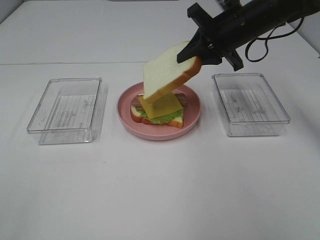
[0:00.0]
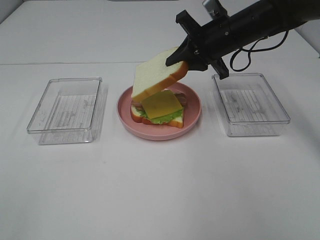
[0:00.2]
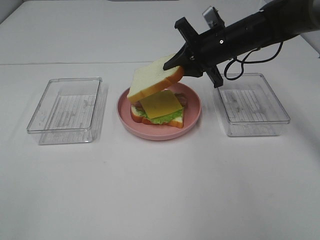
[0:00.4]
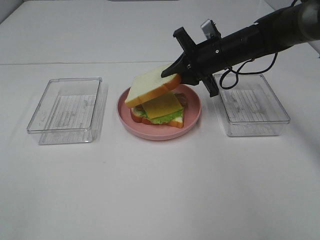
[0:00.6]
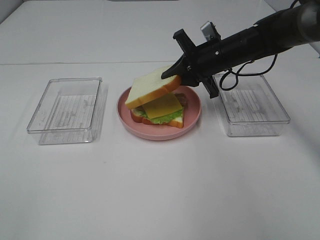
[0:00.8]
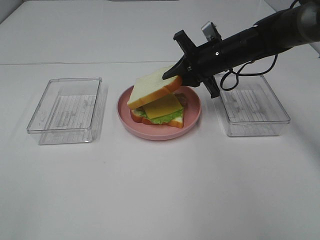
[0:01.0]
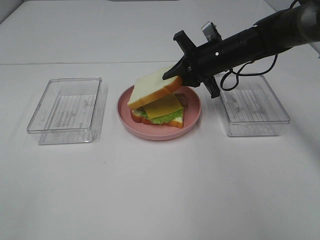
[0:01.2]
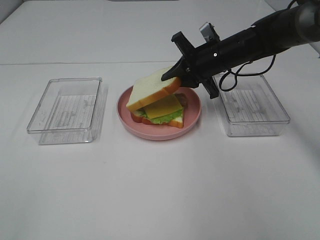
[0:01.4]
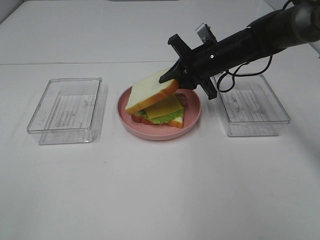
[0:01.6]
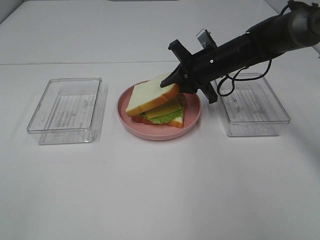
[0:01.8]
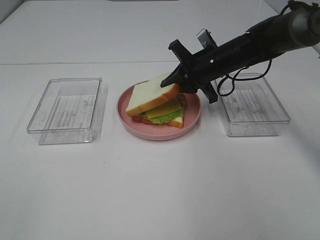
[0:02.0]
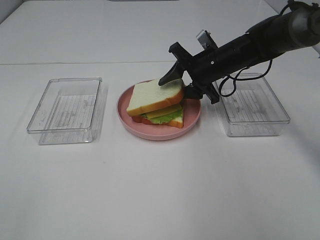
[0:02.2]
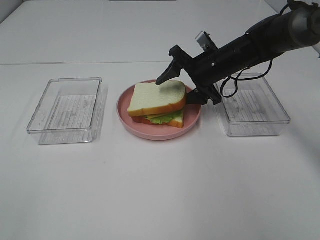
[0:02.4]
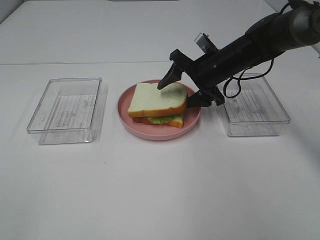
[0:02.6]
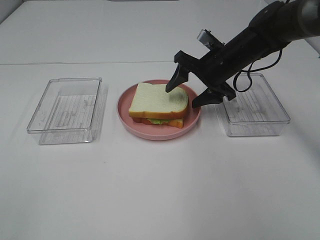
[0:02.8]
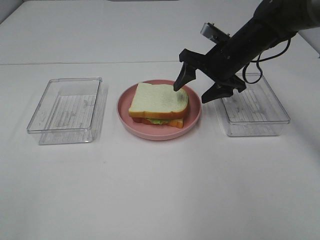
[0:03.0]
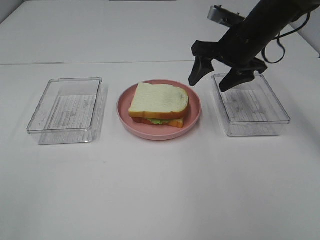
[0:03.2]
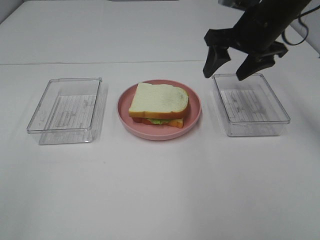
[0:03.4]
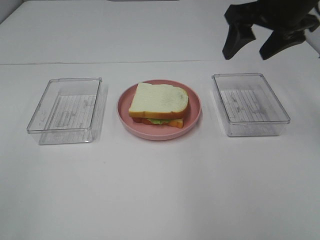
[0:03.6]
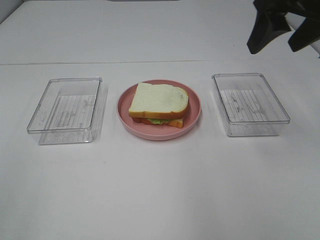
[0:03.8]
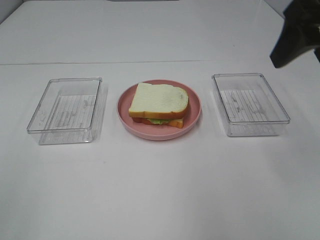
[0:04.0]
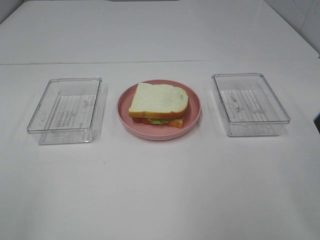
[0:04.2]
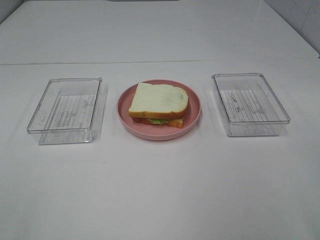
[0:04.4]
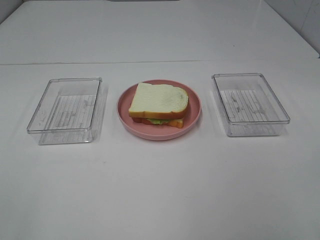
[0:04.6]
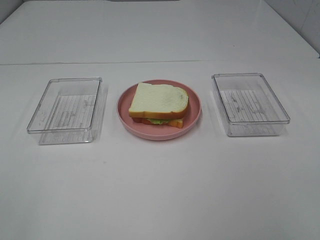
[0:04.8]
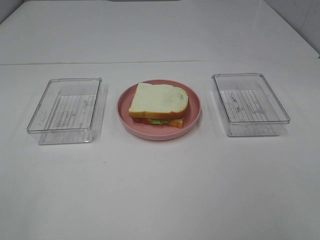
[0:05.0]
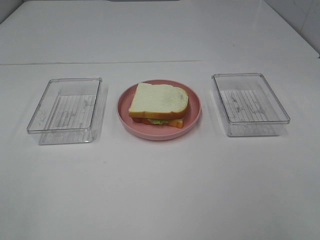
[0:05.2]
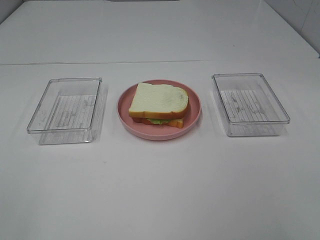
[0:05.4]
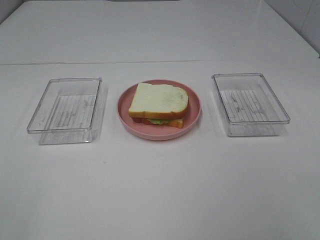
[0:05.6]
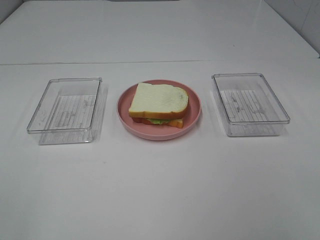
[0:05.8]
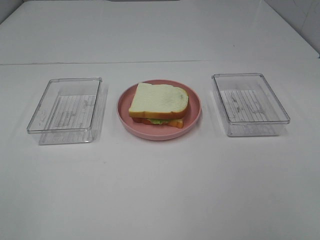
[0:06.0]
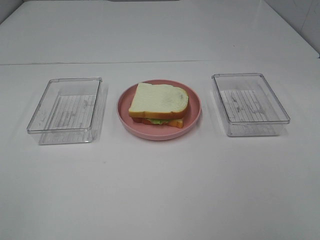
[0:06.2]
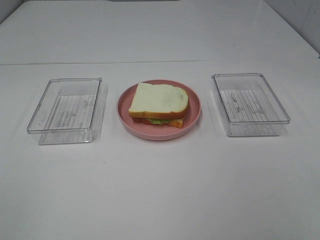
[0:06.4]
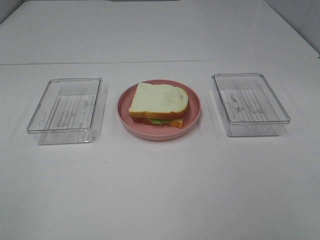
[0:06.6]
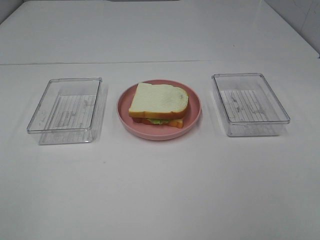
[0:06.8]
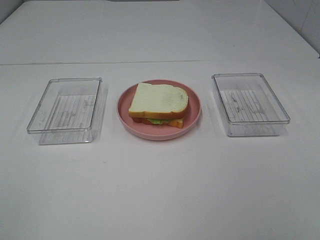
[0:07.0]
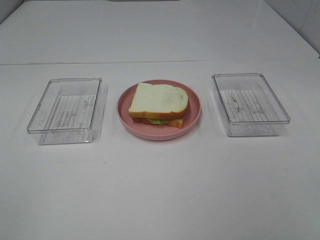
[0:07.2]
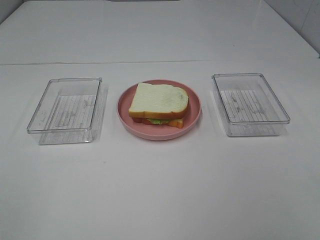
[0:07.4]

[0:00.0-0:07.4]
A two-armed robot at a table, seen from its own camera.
Task of the whole recording: Make sandwiches.
Step, 0:00.0 to 0:02.8: Right hand:place the bread slice on the cheese slice.
0:00.0 to 0:01.4: The right gripper shifts some 5 cm downward.
0:01.4 to 0:03.0: The right gripper opens up.
0:03.0 to 0:04.4: The right gripper moves backward and upward, about 35 cm.
